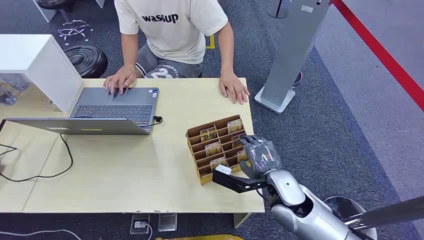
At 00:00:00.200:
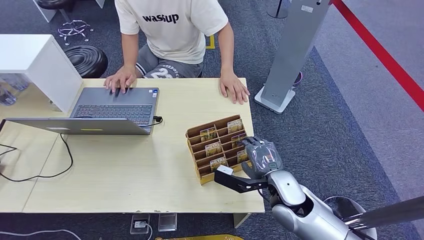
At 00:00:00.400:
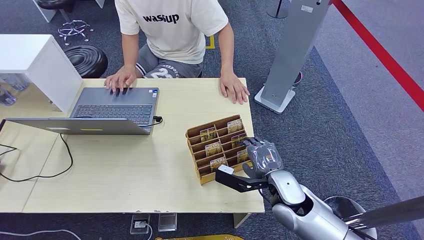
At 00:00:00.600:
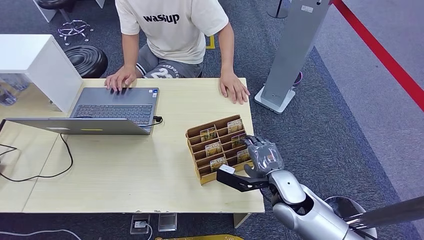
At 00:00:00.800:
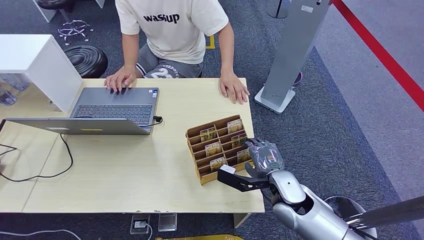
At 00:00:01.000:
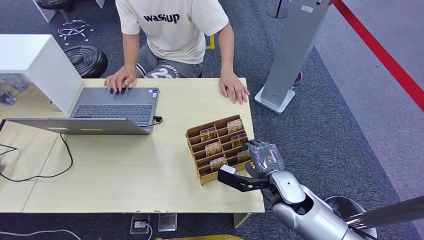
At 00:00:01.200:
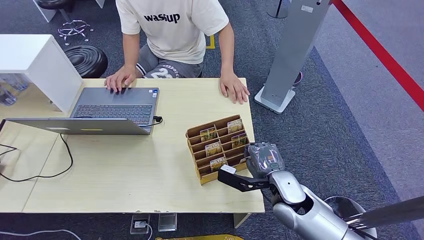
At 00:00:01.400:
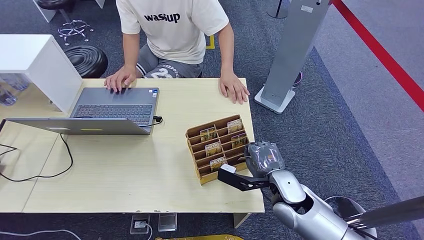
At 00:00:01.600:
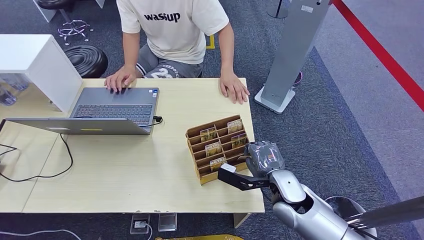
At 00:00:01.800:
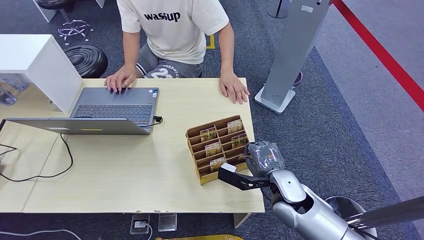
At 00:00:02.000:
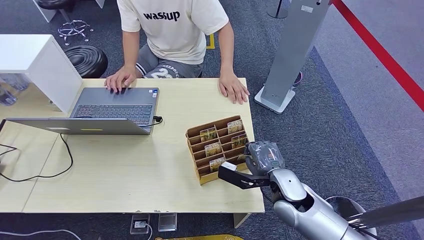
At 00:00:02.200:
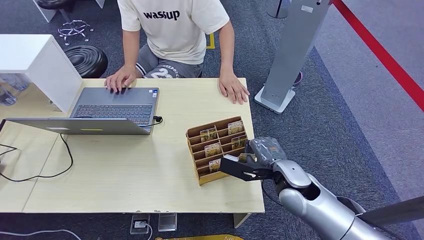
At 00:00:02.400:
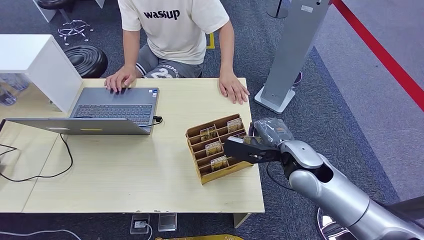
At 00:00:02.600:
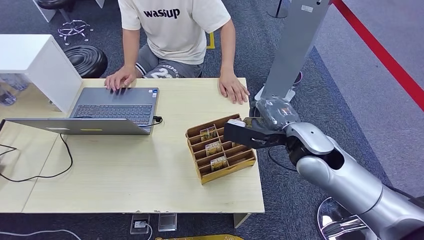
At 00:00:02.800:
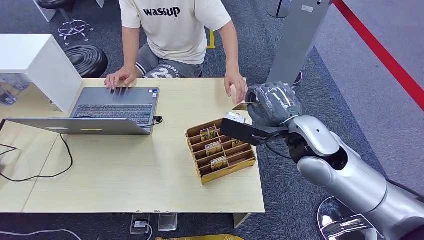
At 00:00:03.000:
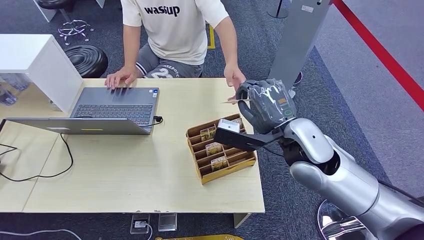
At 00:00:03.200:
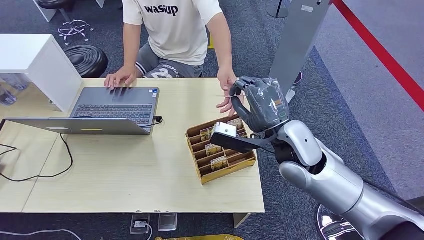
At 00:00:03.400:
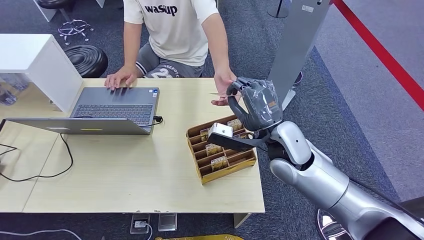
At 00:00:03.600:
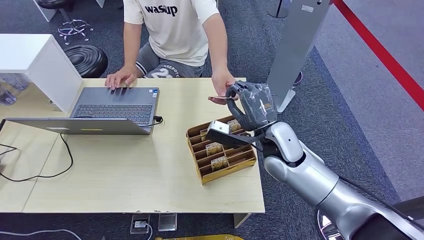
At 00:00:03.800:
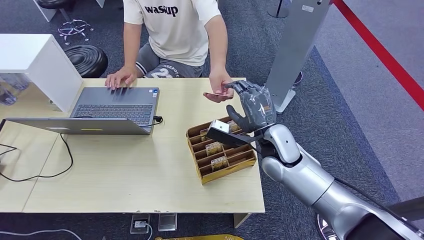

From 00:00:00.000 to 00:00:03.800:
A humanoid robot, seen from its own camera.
Step, from 00:00:00.000 to 00:00:02.200: Pick up the room card from the card holder.
Step, from 00:00:02.600 to 00:00:03.800: Hand the room card to the target.
From 00:00:01.200 to 00:00:02.600: The right hand moves upward, approximately 15 cm.
From 00:00:02.600 to 00:00:03.800: The right hand moves downward, roughly 5 cm.
